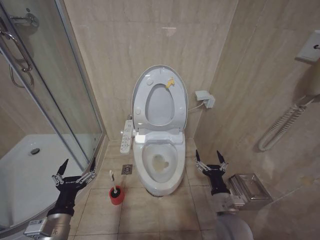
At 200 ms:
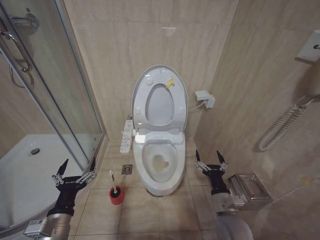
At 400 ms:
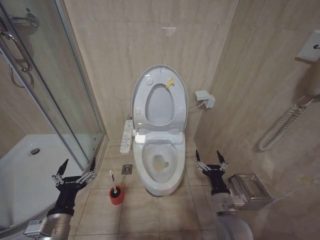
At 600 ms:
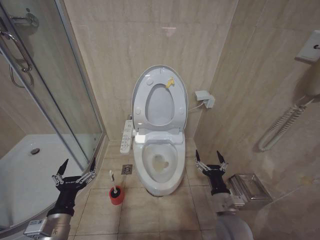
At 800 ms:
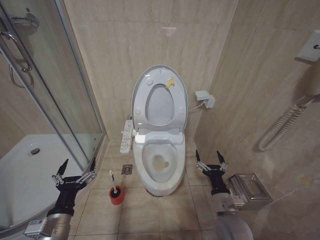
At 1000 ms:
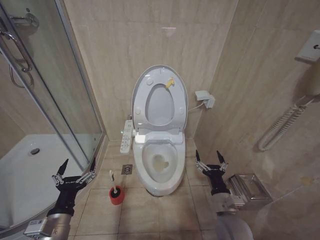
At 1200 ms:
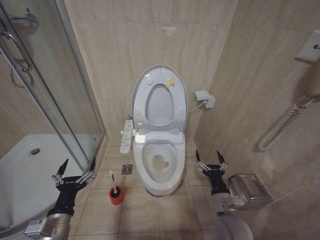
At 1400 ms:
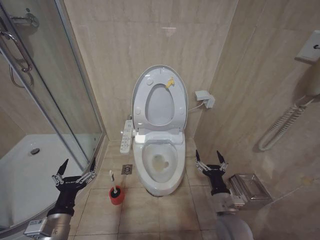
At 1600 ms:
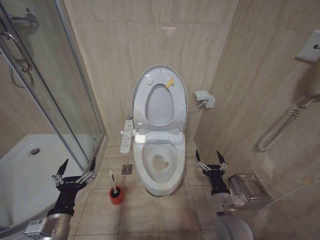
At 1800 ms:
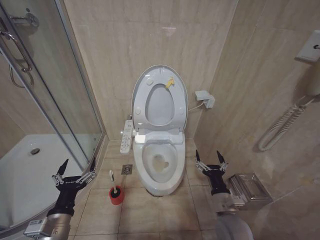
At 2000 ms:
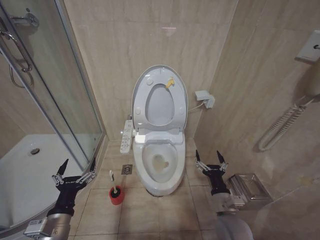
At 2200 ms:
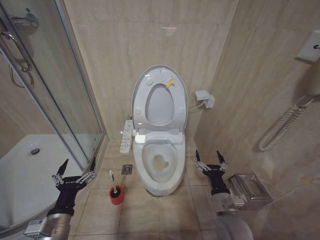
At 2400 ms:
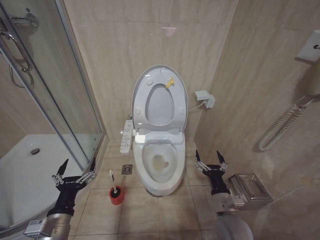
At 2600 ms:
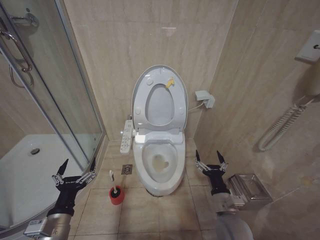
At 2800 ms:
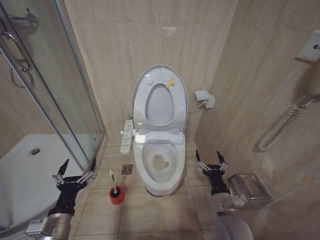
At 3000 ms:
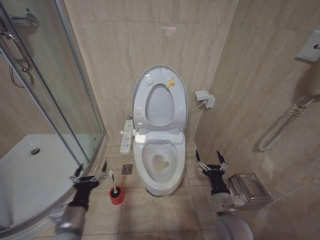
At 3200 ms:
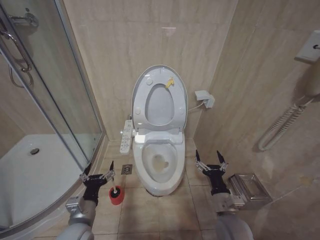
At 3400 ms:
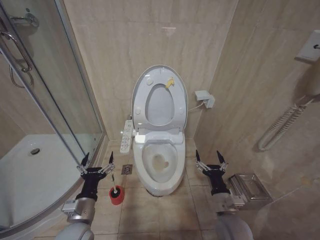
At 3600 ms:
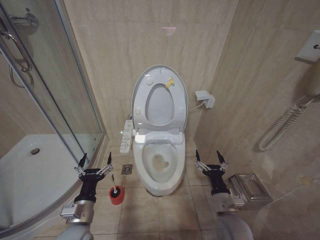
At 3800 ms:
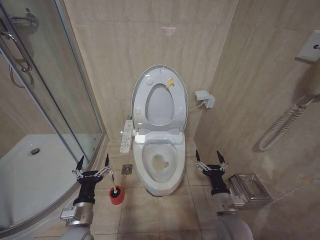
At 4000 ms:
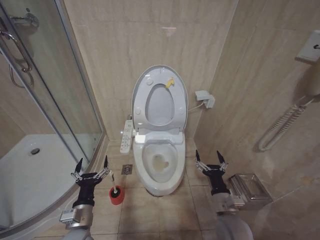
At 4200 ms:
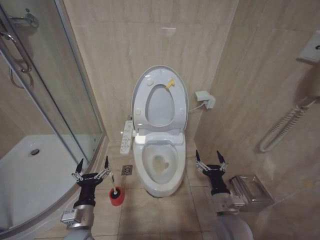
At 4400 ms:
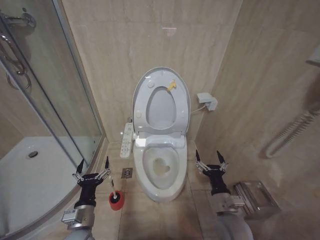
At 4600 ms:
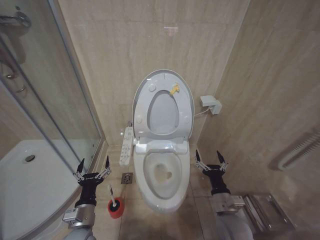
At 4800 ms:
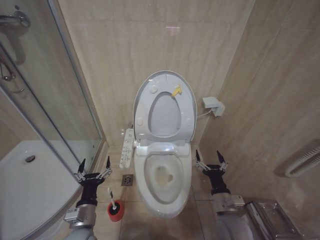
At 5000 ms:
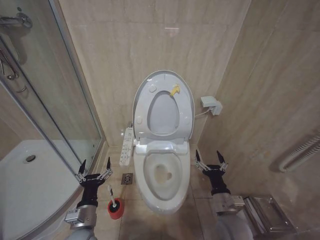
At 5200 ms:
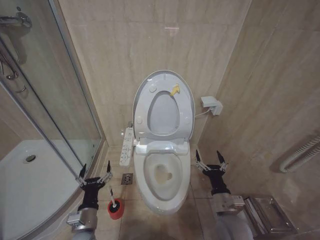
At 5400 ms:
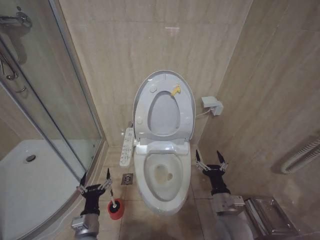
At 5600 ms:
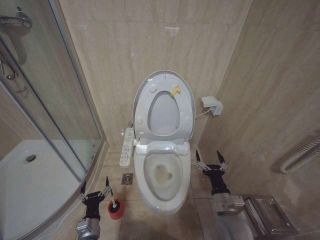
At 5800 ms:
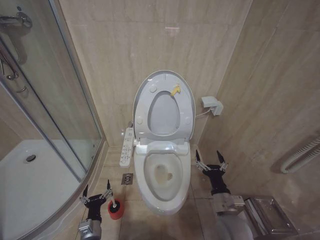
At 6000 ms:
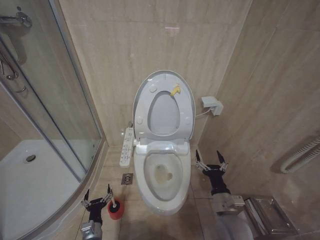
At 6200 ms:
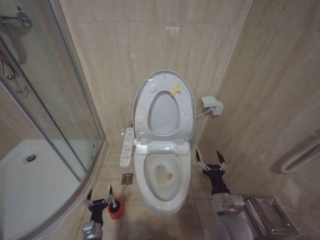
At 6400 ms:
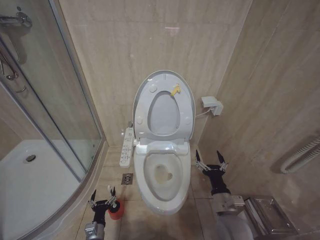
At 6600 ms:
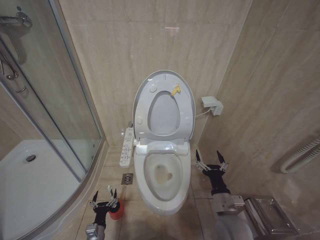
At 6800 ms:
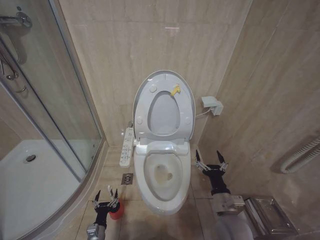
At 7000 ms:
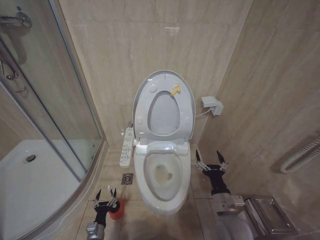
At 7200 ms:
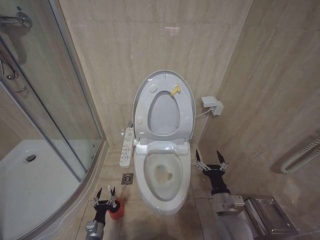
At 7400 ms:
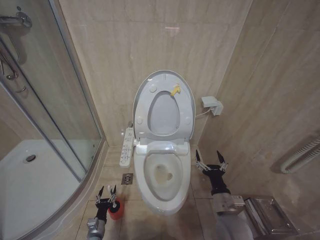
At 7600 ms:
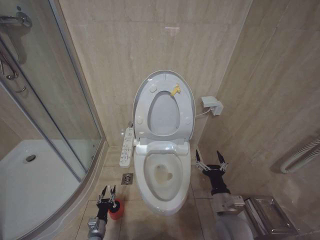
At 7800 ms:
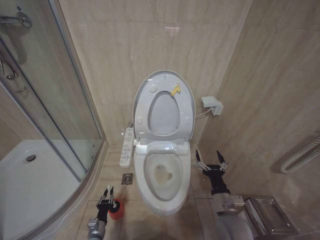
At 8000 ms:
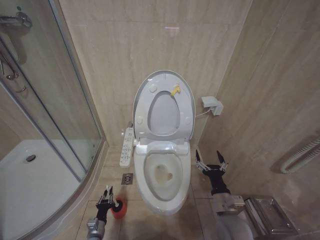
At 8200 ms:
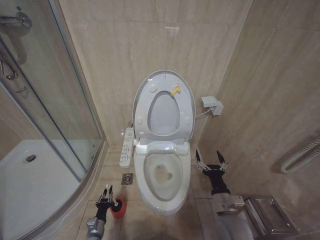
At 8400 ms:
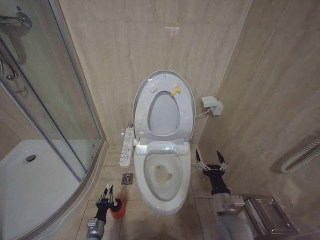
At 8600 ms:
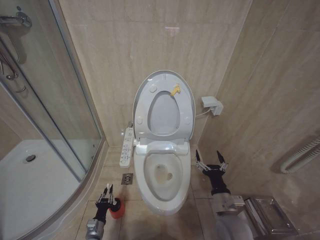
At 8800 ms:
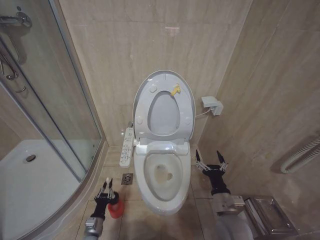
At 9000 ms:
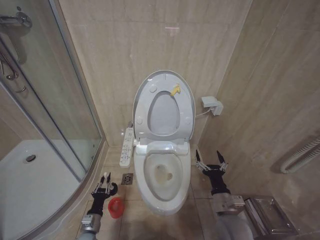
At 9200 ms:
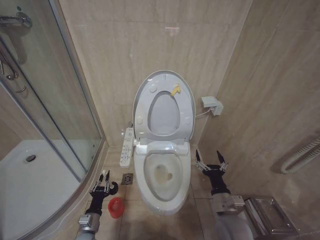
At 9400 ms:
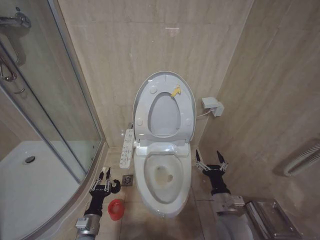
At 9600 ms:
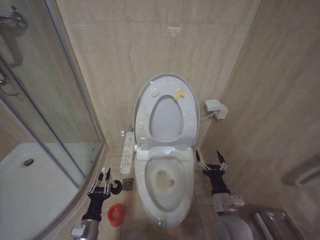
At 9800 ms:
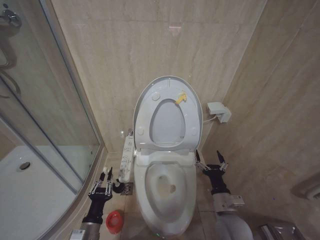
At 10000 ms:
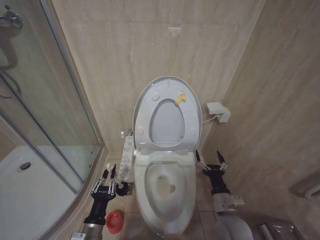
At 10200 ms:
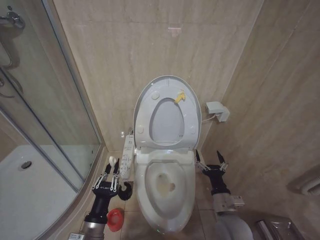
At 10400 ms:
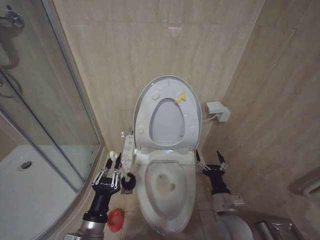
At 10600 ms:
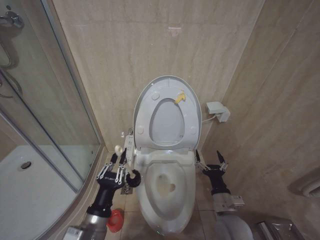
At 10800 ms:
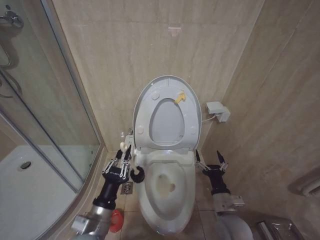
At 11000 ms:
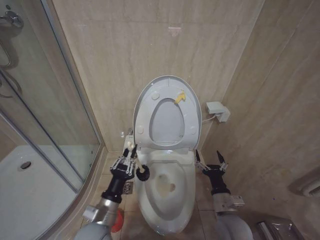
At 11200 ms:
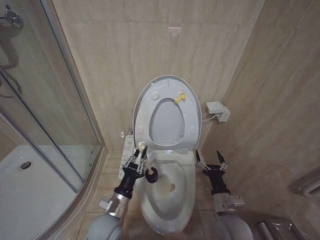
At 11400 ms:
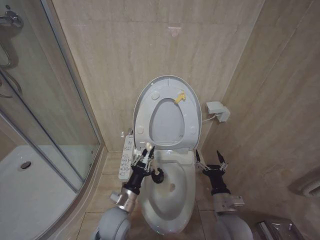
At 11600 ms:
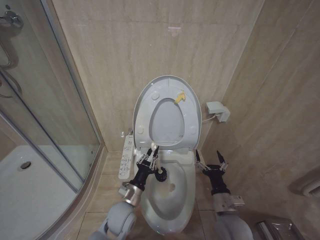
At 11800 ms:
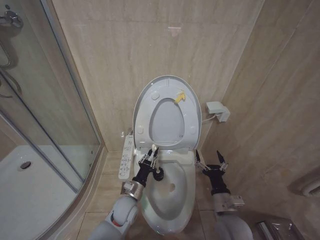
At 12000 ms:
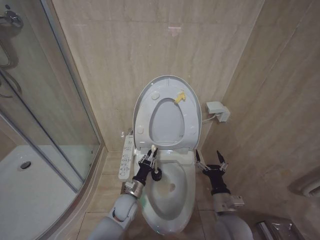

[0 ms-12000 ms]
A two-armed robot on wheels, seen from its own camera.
Task of the whole recording: Open the toilet lid, clean the toilet bowl with a toilet brush, close the toilet lid, and flush.
0 ms to 1600 ms: Neither gripper changes place.
1600 ms to 3000 ms: The grippers stay close to where they were, moving slightly.
3000 ms to 4400 ms: The left gripper changes place by roughly 5 cm.
4400 ms to 6000 ms: The left gripper moves downward, roughly 15 cm.
6000 ms to 7600 ms: The left gripper shifts approximately 10 cm downward.
7600 ms to 9000 ms: The left gripper is displaced upward by roughly 10 cm, and closes its fingers.
9000 ms to 10400 ms: The left gripper shifts about 25 cm upward and backward.
10400 ms to 12000 ms: The left gripper goes roughly 25 cm forward, downward and to the right.

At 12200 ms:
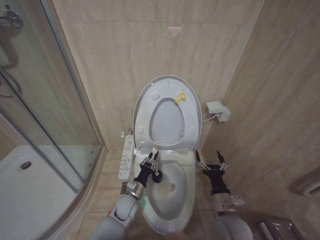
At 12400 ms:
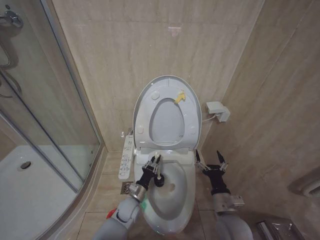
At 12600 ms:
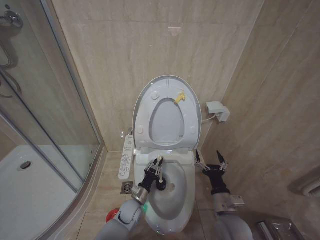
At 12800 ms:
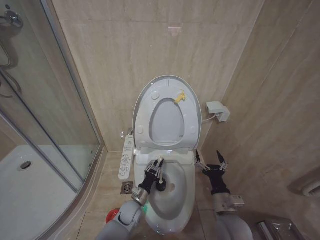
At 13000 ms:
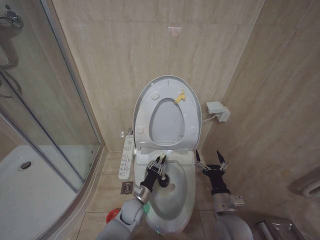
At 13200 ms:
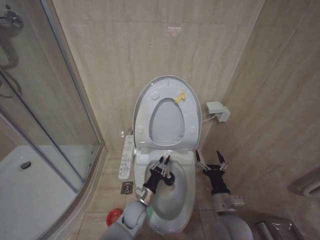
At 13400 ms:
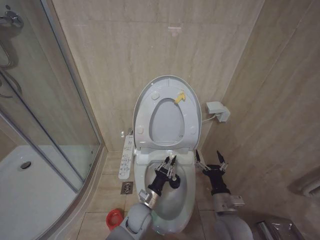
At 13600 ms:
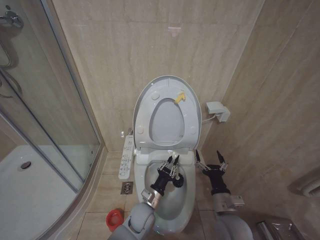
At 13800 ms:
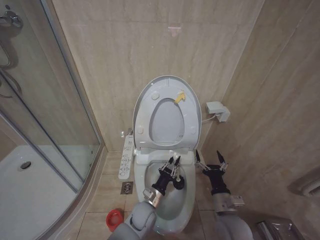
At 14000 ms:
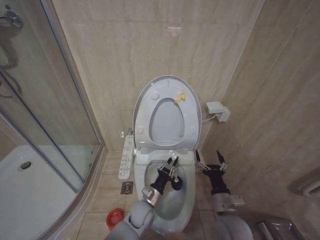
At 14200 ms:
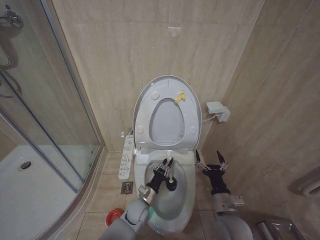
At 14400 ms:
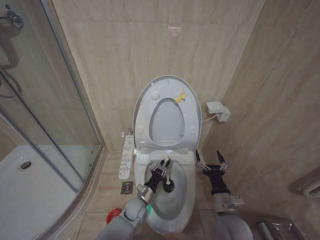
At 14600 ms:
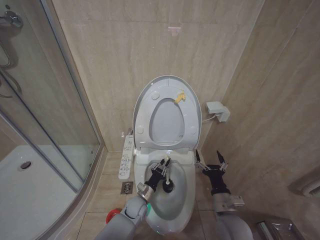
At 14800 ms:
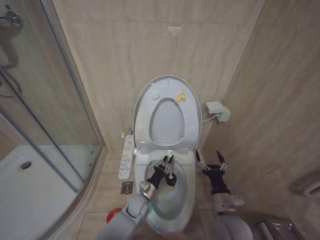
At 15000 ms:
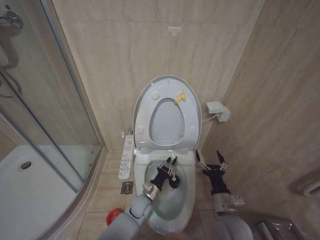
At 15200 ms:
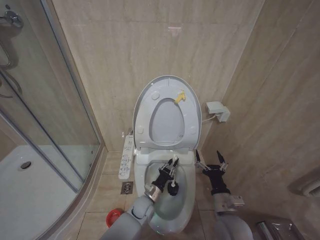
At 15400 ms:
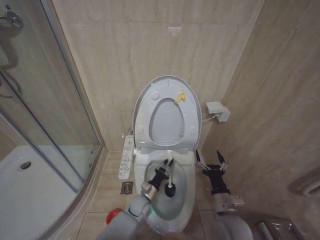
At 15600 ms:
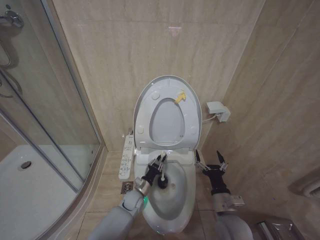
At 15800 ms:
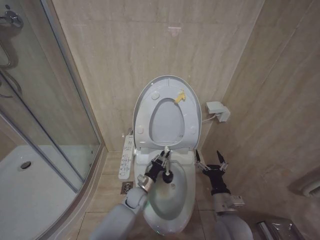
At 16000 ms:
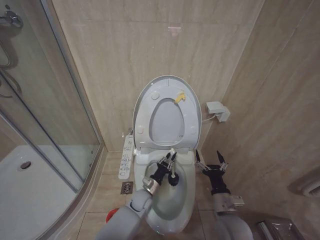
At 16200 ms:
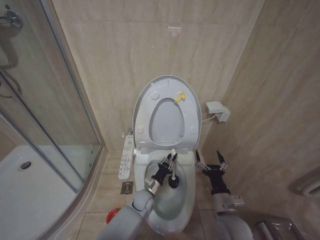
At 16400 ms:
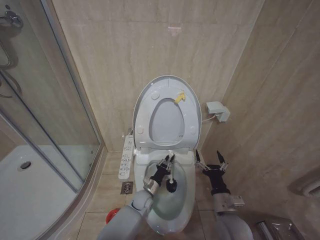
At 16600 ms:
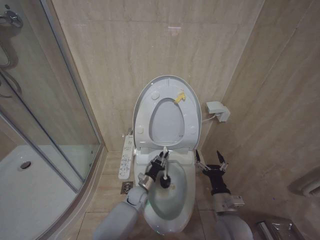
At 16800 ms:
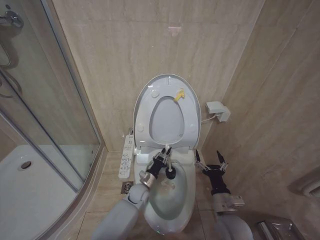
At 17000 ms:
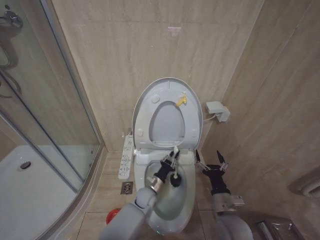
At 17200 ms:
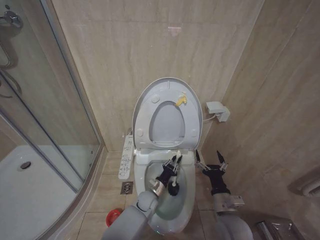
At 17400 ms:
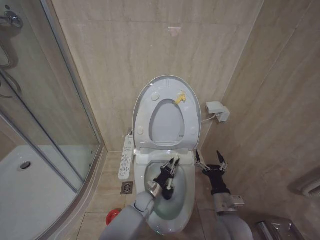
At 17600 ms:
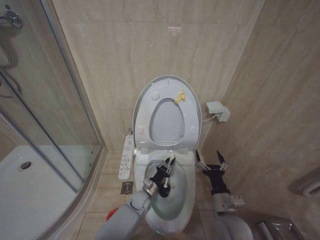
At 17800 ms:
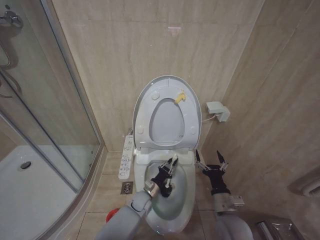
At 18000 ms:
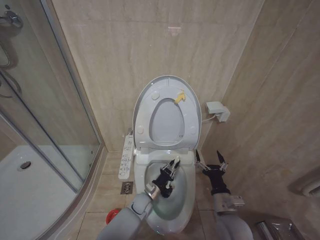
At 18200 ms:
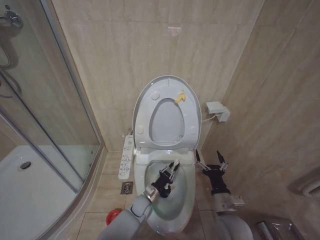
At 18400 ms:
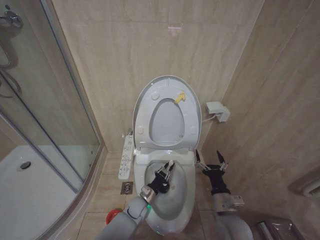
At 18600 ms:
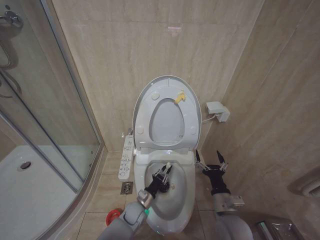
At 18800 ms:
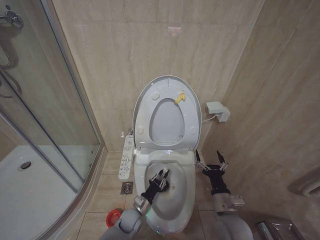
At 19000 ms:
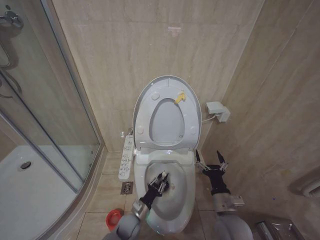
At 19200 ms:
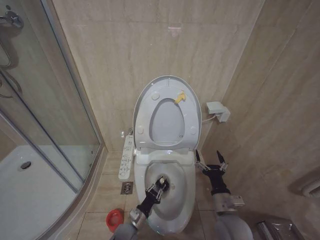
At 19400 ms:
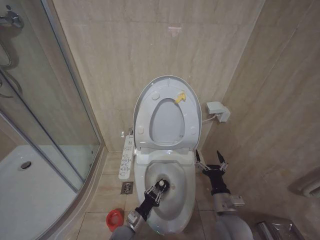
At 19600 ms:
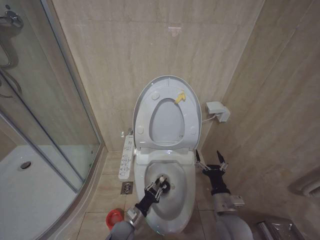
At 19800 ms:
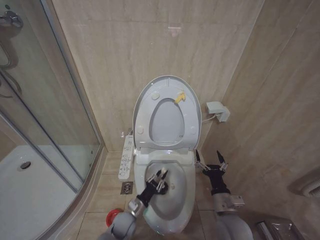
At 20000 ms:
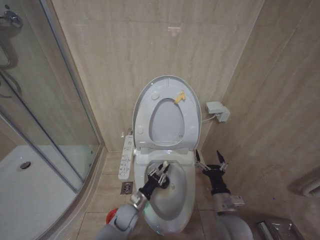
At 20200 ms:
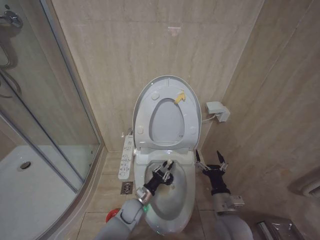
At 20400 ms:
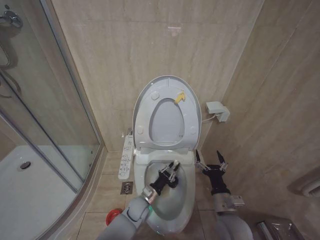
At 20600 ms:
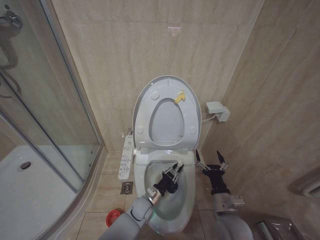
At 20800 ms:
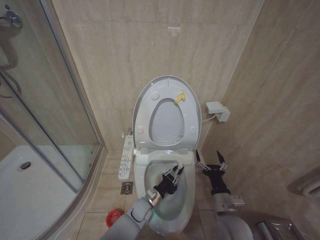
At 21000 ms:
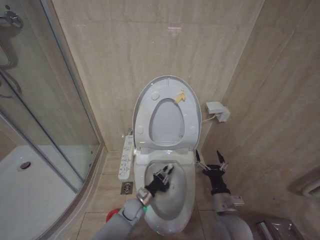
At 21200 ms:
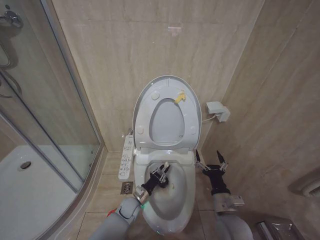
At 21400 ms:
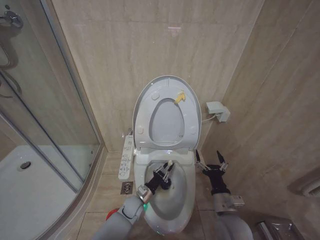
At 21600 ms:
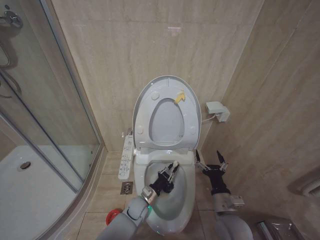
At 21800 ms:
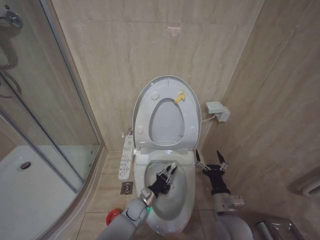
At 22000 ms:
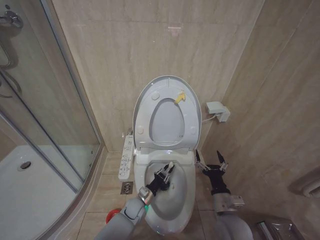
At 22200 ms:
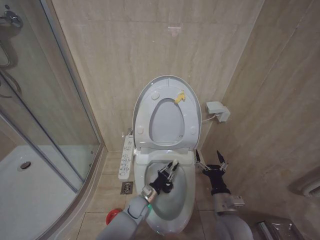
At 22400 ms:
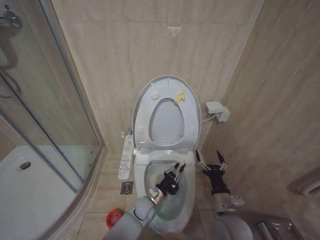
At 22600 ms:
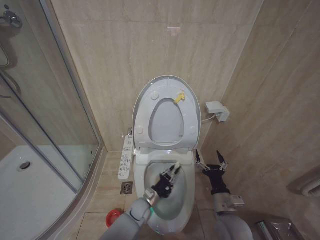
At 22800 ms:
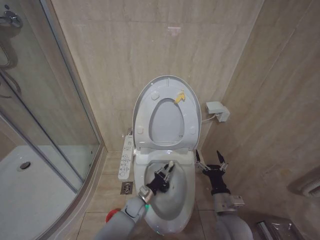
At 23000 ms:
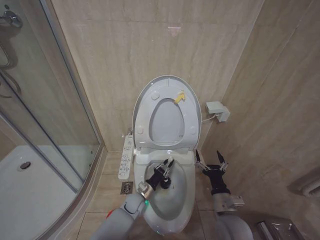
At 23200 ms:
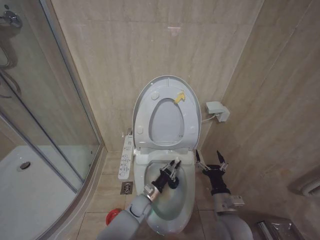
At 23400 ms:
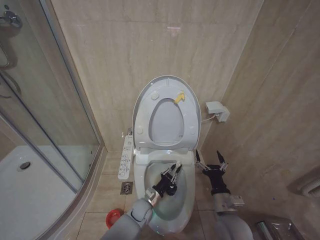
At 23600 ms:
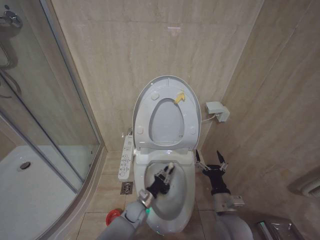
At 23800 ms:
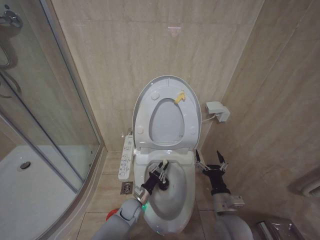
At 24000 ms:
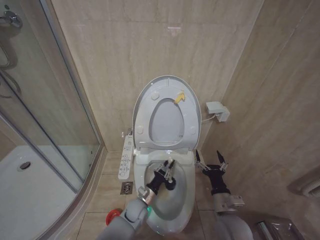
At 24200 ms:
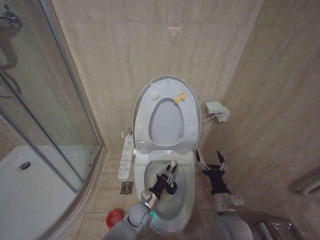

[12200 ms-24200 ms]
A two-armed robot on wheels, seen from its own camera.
Task of the whole recording: Open the toilet lid, clean the toilet bowl with a toilet brush, close the toilet lid, and flush.
12200 ms to 13800 ms: The left gripper travels to the right by approximately 5 cm.
13800 ms to 15200 ms: The left gripper moves roughly 5 cm.
15200 ms to 16600 ms: The left gripper shifts by about 5 cm.
16600 ms to 18200 ms: There are only small adjustments of the grippers.
18200 ms to 19800 ms: The left gripper heads backward and to the left, covering approximately 10 cm.
19800 ms to 21200 ms: The left gripper heads forward, covering roughly 10 cm, and reaches roughly 10 cm to the right, then returns.
21200 ms to 22600 ms: The left gripper travels to the right by some 5 cm.
22600 ms to 24200 ms: The left gripper moves left and right over roughly 5 cm, changing direction 3 times.
